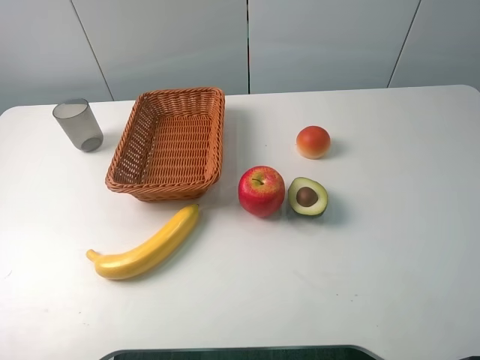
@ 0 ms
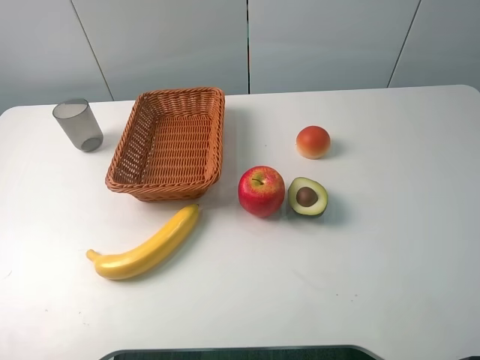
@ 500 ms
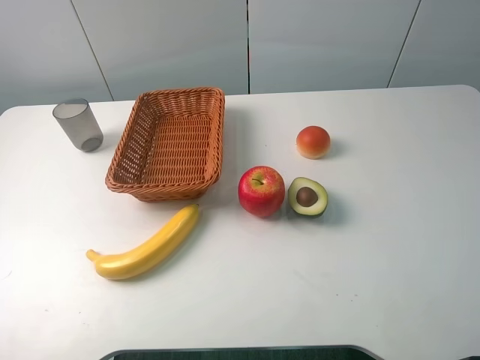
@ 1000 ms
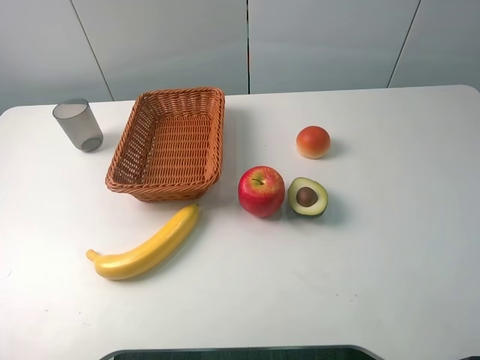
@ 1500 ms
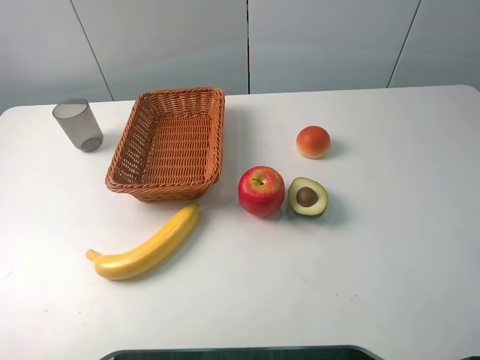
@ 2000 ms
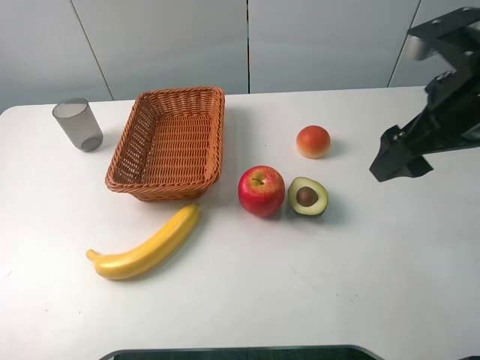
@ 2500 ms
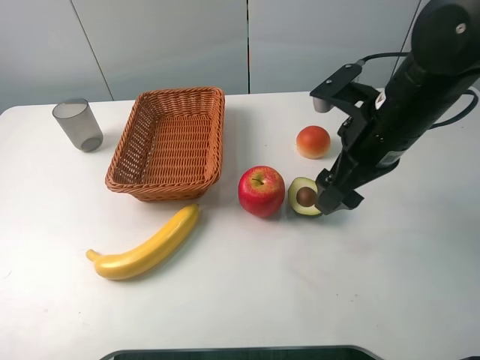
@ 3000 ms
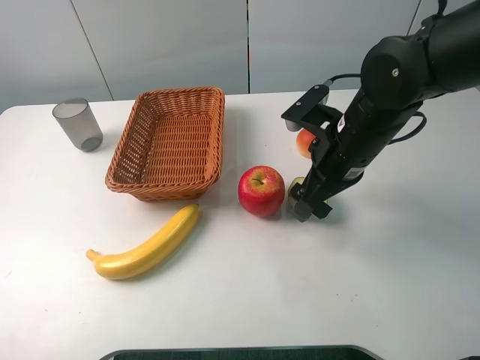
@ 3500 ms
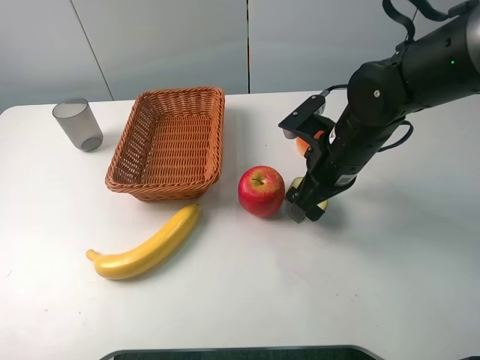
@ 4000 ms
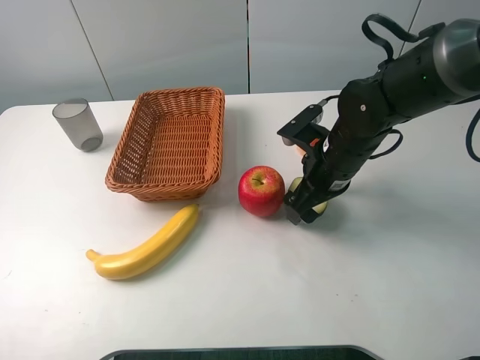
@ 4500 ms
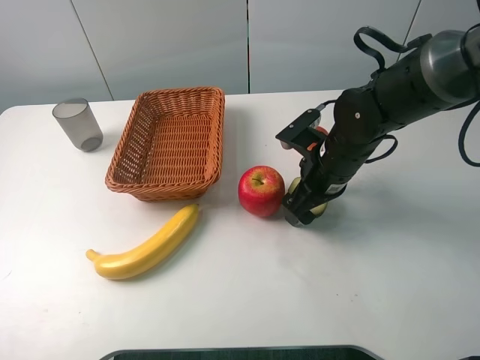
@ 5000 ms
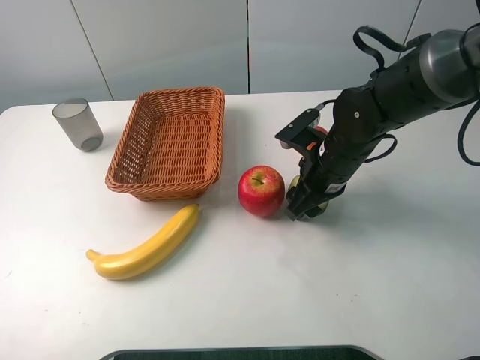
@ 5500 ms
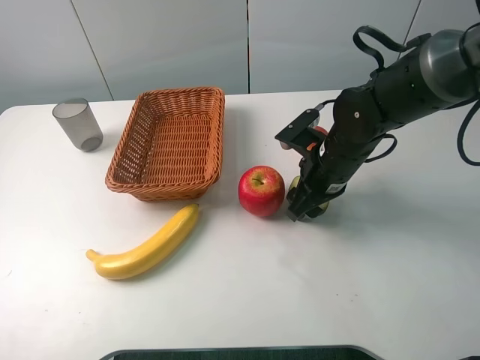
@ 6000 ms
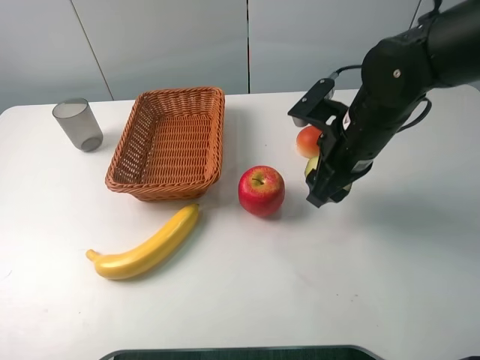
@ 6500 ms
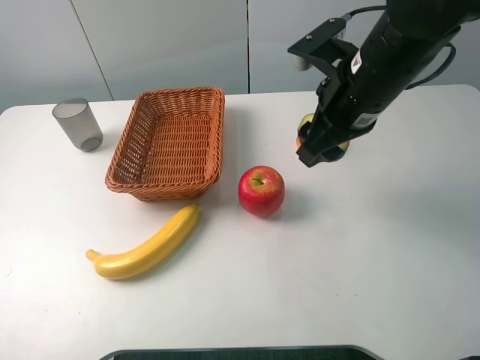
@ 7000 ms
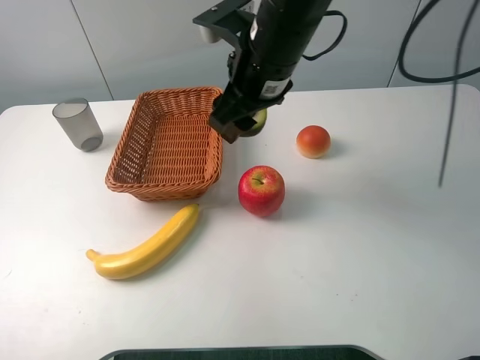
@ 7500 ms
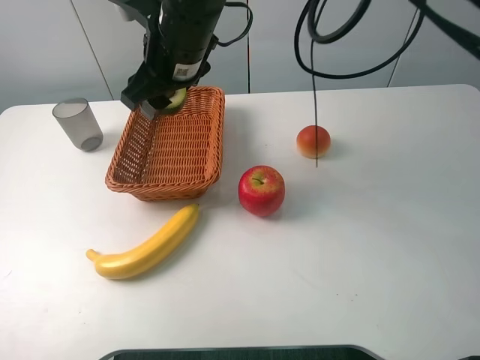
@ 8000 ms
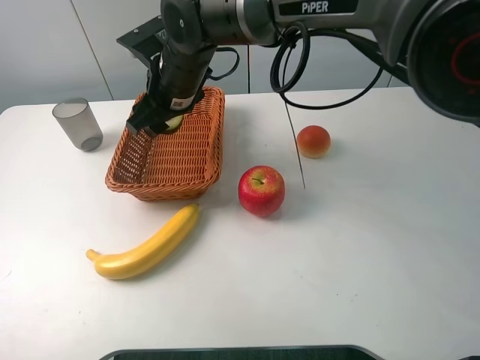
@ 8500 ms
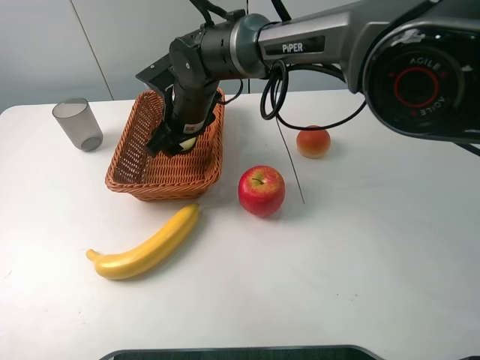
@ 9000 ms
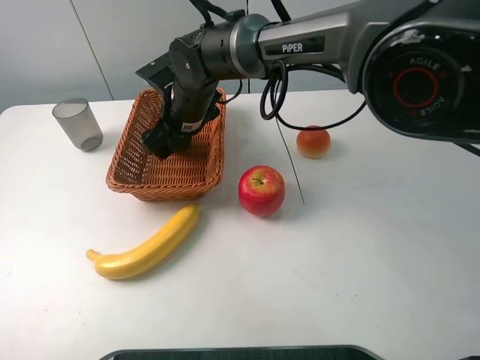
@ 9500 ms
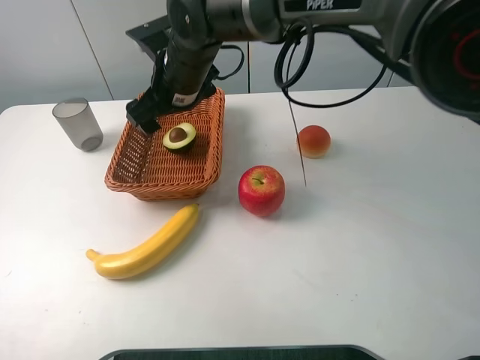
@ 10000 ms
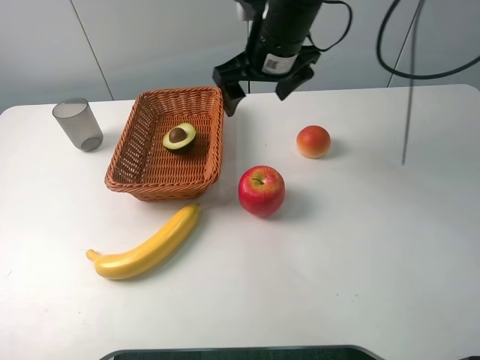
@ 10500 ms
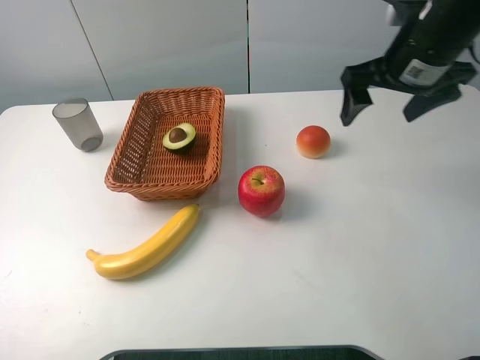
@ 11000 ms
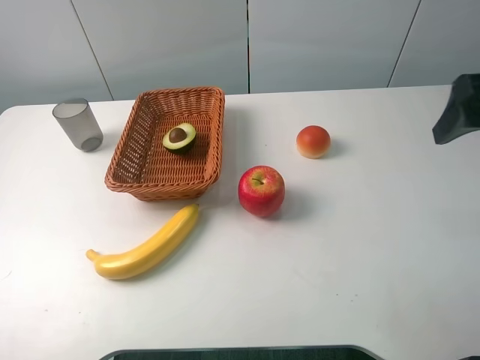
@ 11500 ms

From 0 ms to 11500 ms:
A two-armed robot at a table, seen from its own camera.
From 2000 ms to 4000 ms: The right gripper moves downward, to the left and forward, some 30 cm.
From 4000 ms to 6000 ms: The right gripper closes.
From 6000 ms to 7500 ms: The right gripper shifts some 20 cm upward and to the left.
From 7500 ms to 9500 ms: The right gripper shifts roughly 15 cm downward, to the left and forward, and opens up.
From 9500 ms to 11500 ms: The right gripper shifts roughly 40 cm to the right, backward and upward.

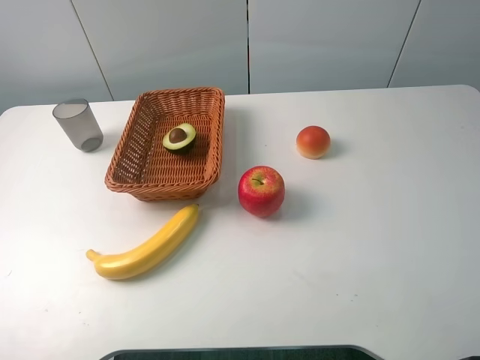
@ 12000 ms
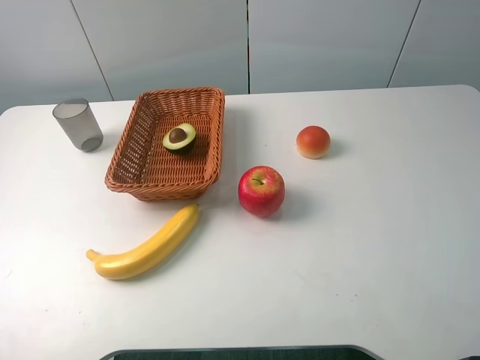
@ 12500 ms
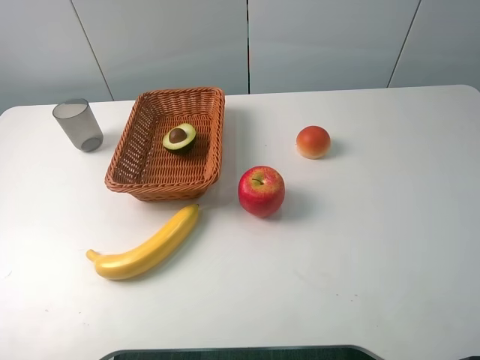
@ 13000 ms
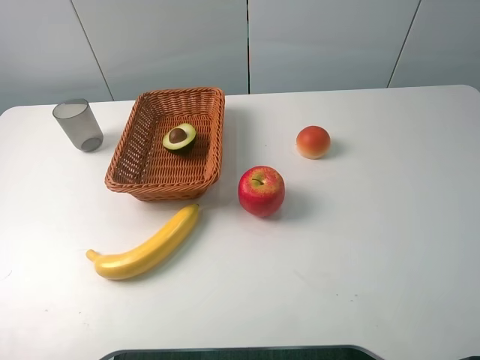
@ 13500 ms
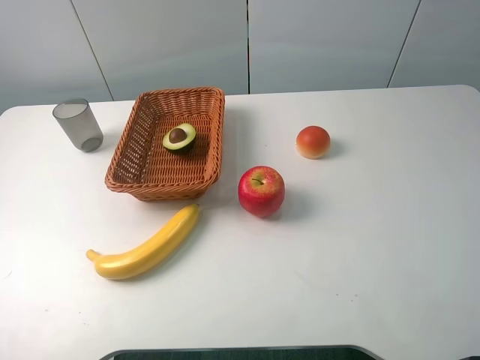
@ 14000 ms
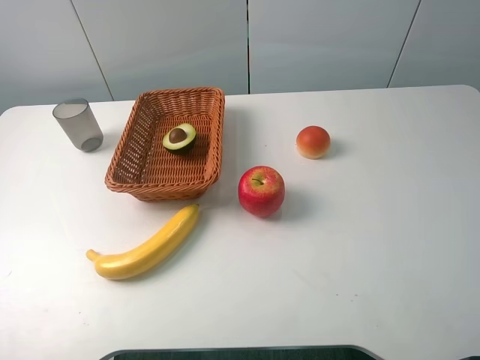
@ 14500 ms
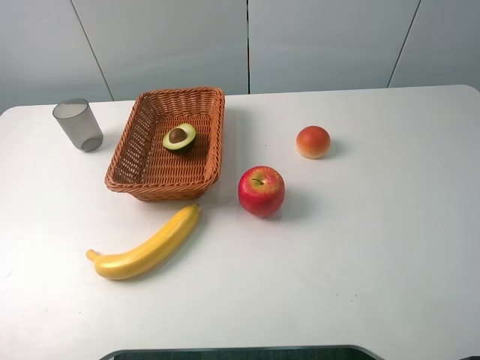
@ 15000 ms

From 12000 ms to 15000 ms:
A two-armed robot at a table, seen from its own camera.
From 13500 ms to 15000 ms: The two grippers keep their place.
